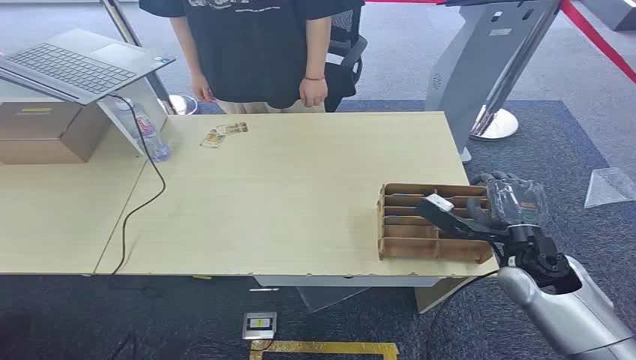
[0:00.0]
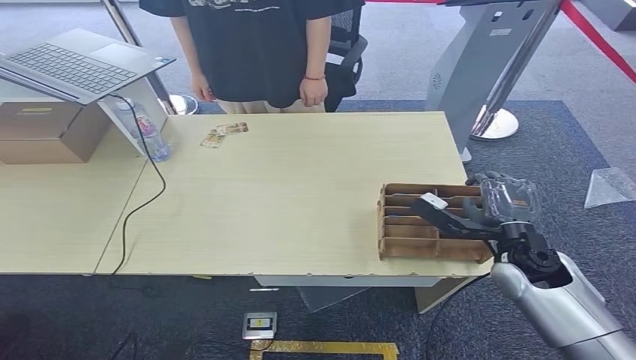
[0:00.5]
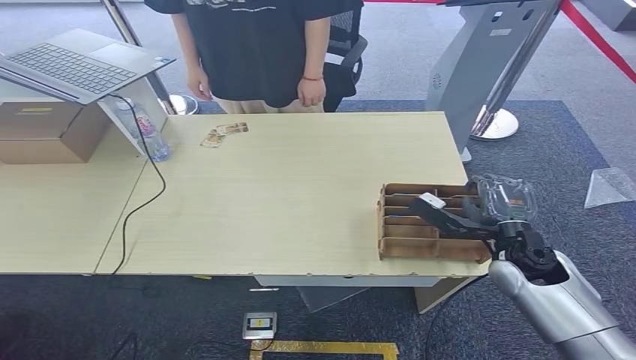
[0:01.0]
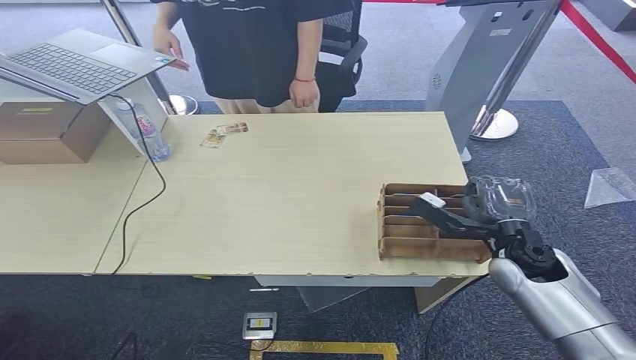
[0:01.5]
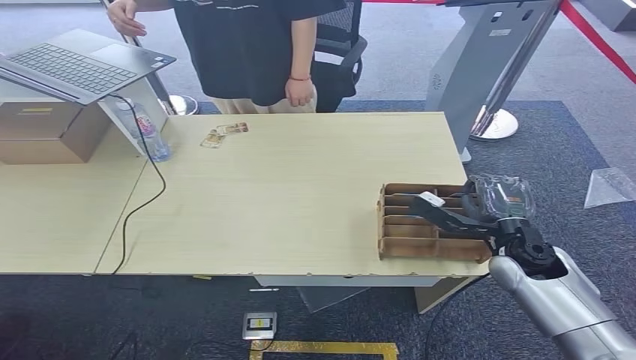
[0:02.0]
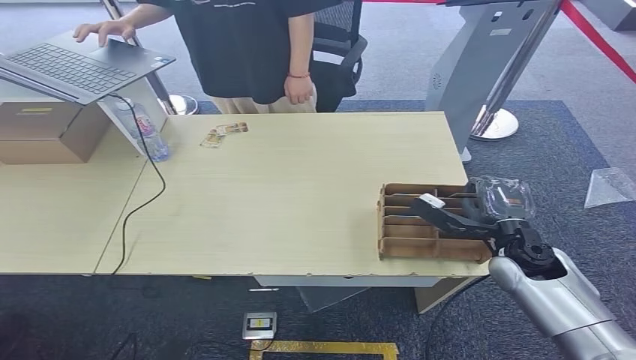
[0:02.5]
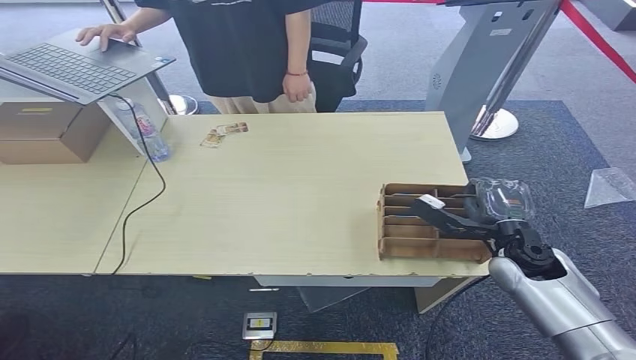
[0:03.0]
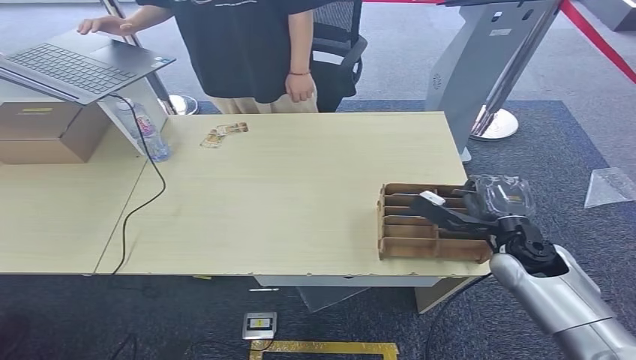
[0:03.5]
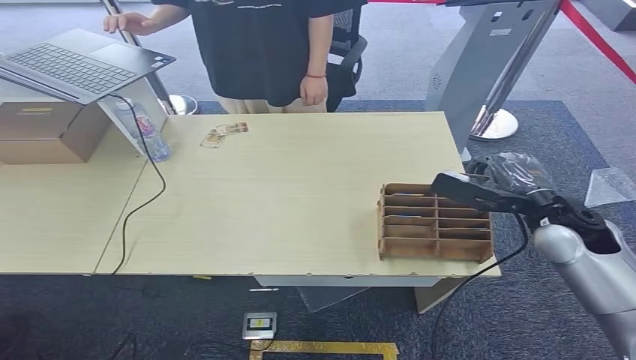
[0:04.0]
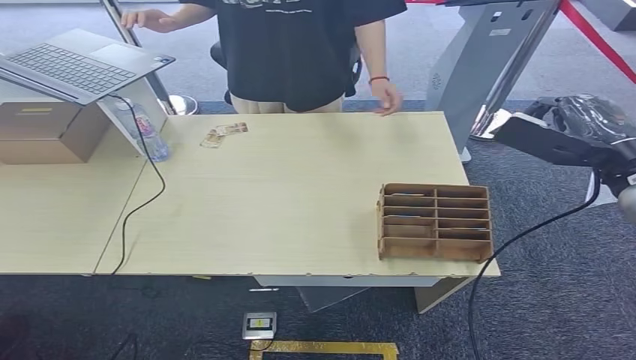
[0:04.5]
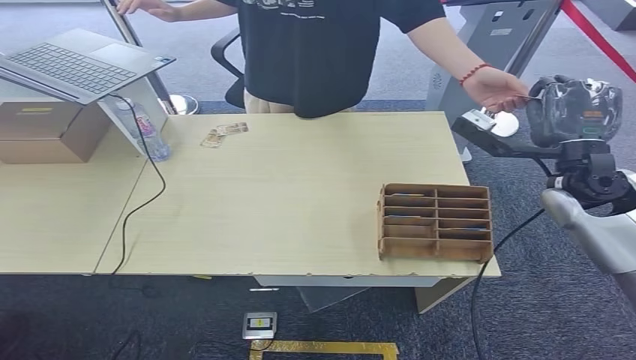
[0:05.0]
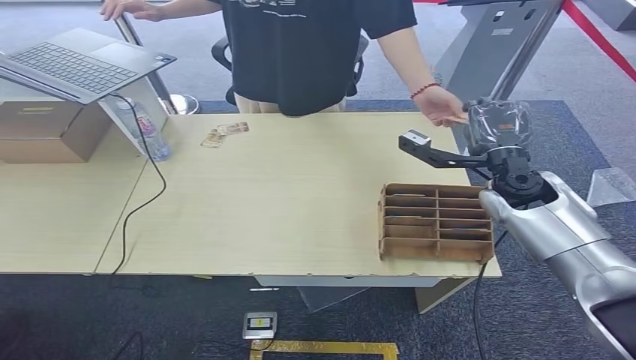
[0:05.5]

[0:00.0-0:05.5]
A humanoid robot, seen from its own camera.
Step, 0:00.0 to 0:04.0: Pick up the key card from the card box.
Step, 0:04.5 to 0:05.5: Hand the key card to the target.
0:02.0 to 0:03.5: Both hands stay put.
0:03.5 to 0:05.5: The right hand travels upward and forward by about 15 cm.
